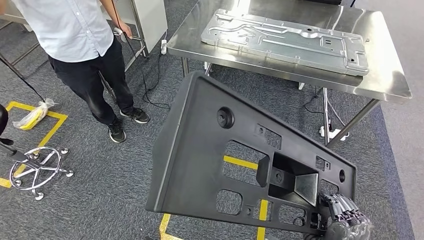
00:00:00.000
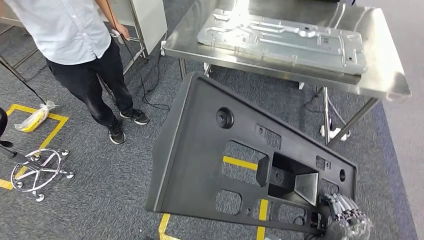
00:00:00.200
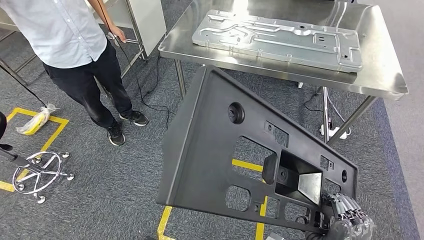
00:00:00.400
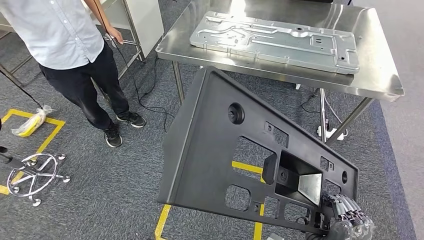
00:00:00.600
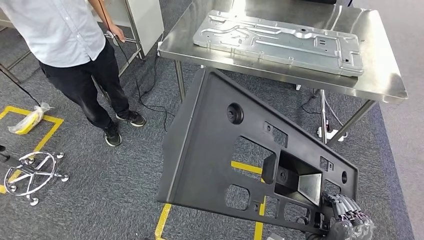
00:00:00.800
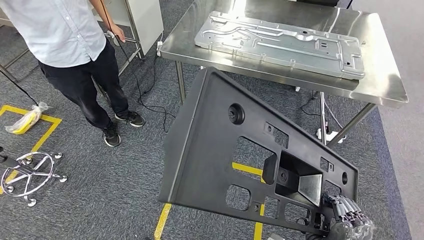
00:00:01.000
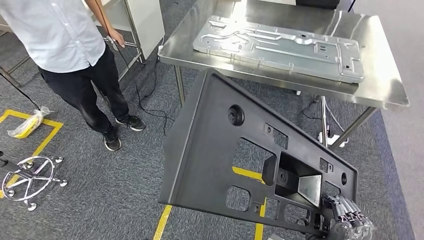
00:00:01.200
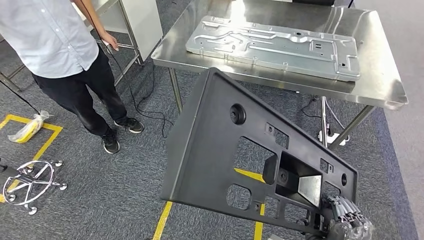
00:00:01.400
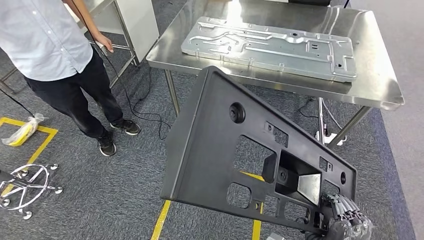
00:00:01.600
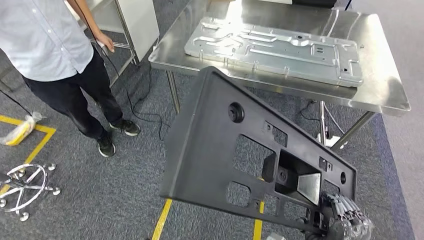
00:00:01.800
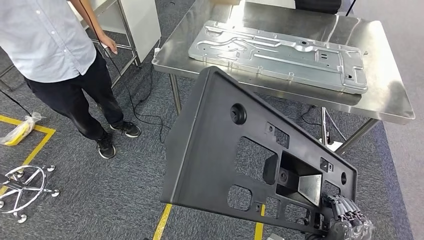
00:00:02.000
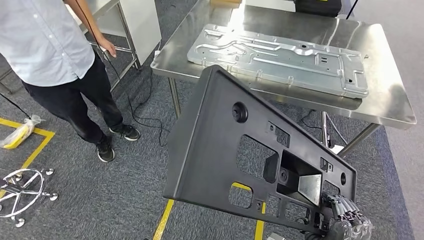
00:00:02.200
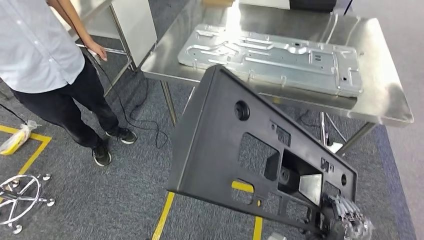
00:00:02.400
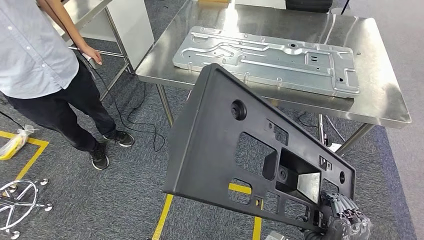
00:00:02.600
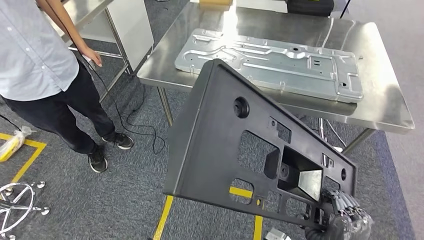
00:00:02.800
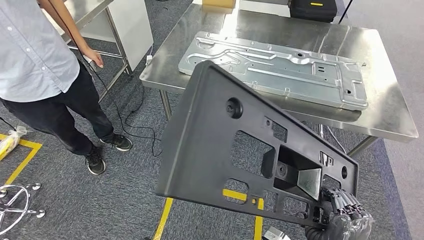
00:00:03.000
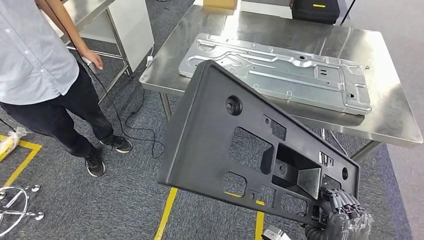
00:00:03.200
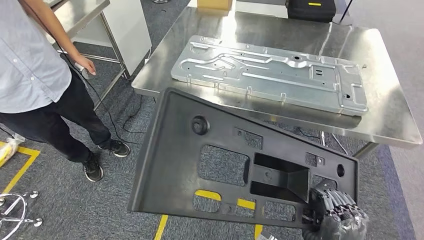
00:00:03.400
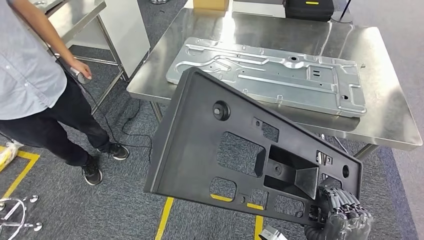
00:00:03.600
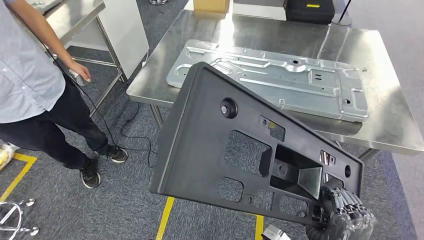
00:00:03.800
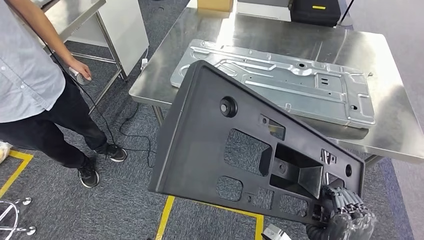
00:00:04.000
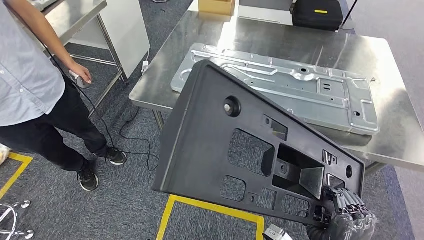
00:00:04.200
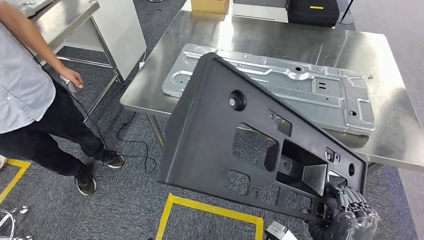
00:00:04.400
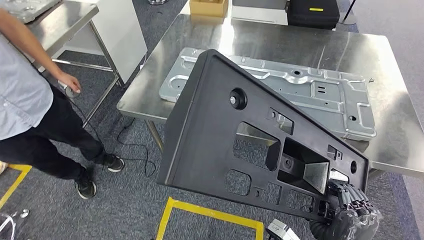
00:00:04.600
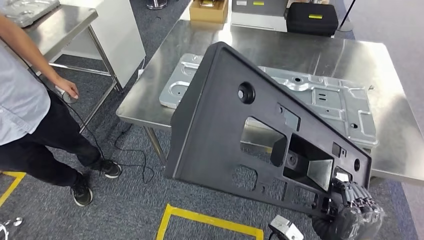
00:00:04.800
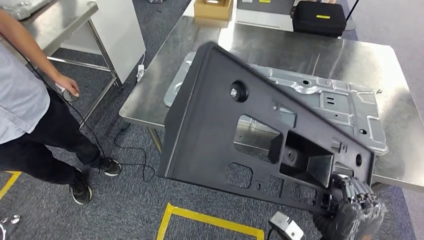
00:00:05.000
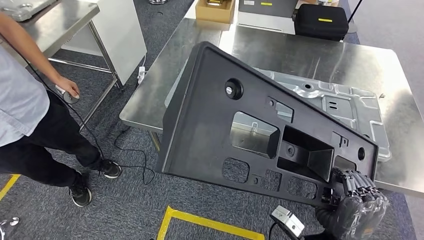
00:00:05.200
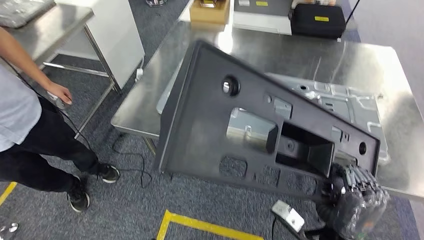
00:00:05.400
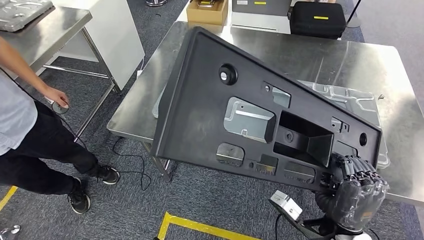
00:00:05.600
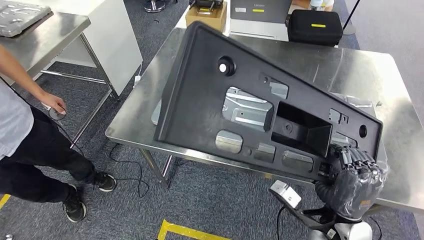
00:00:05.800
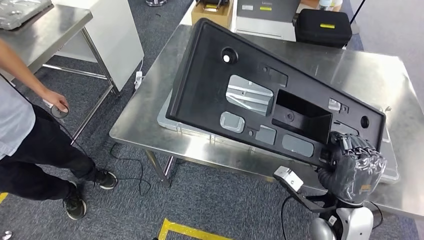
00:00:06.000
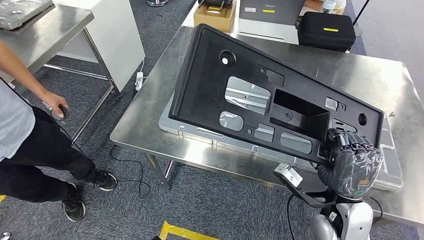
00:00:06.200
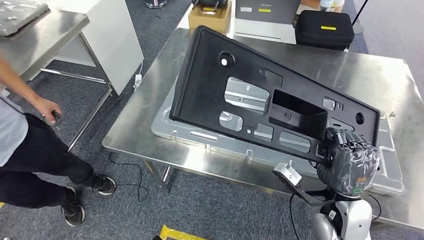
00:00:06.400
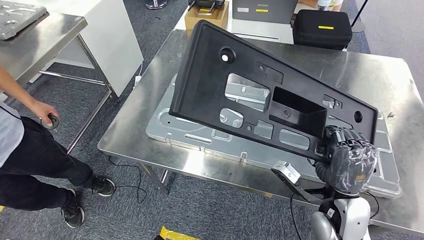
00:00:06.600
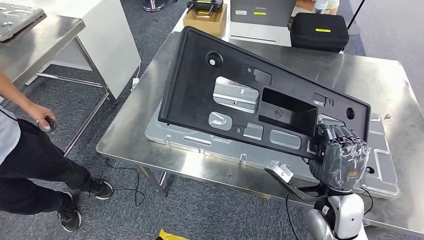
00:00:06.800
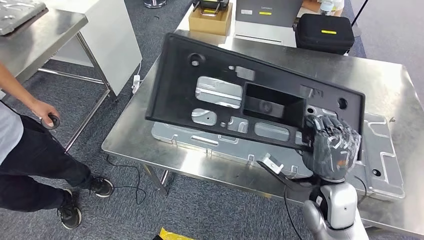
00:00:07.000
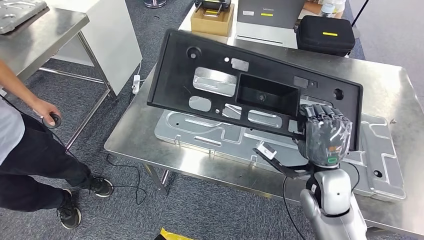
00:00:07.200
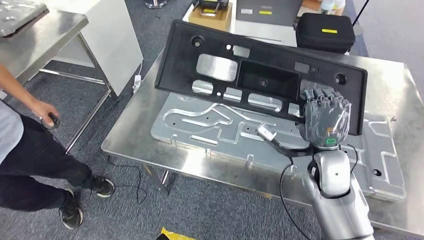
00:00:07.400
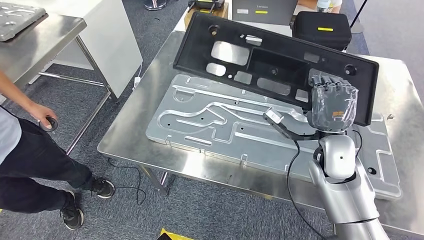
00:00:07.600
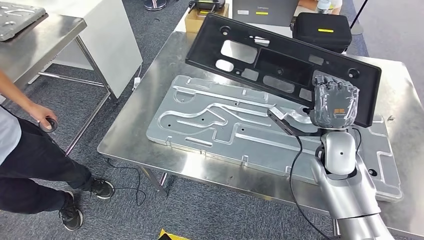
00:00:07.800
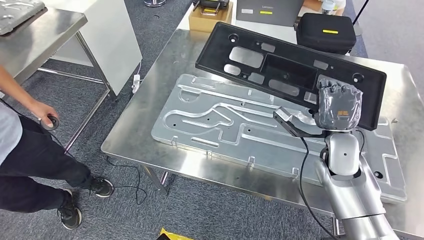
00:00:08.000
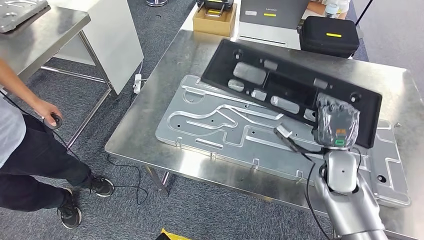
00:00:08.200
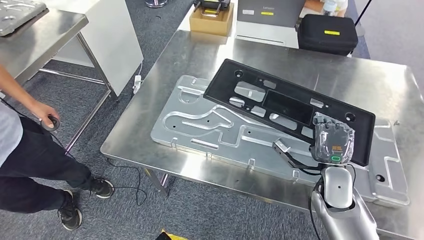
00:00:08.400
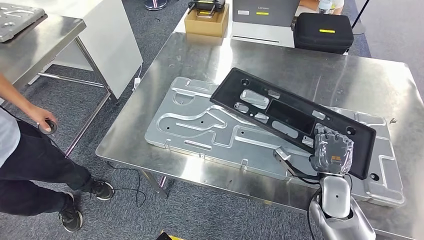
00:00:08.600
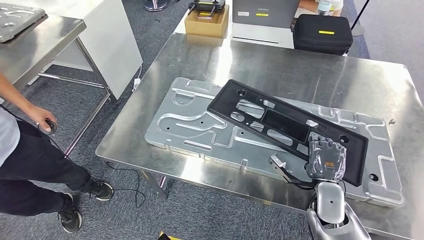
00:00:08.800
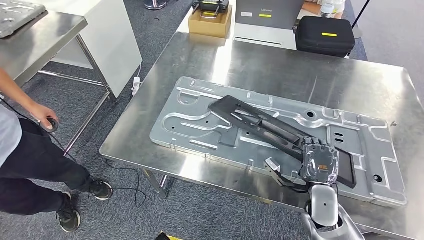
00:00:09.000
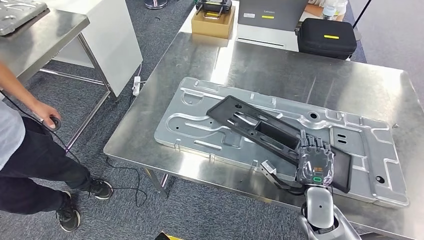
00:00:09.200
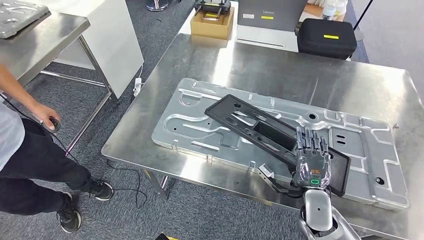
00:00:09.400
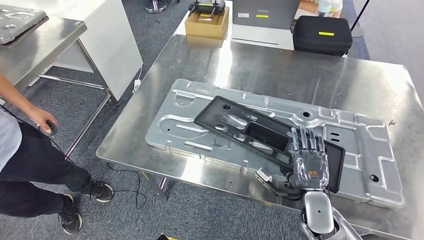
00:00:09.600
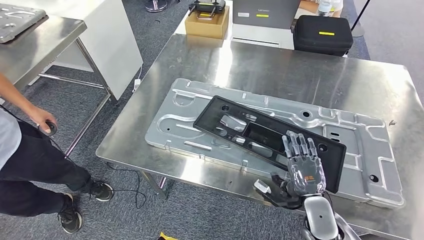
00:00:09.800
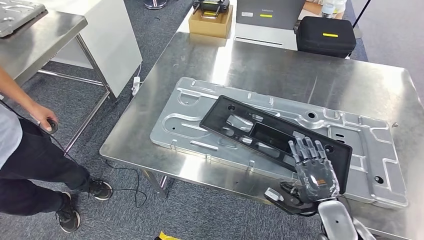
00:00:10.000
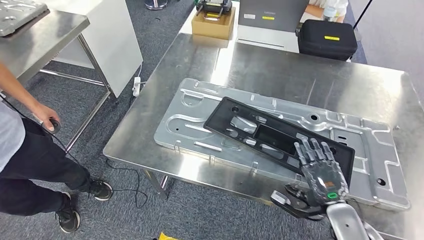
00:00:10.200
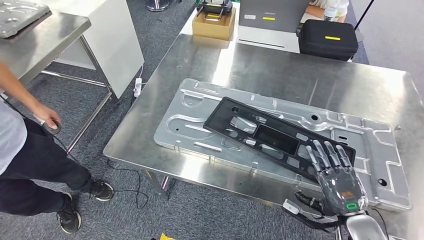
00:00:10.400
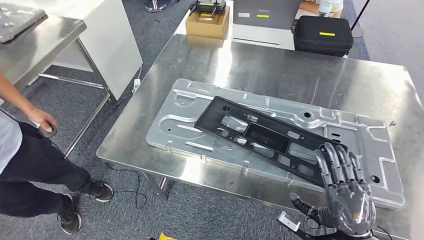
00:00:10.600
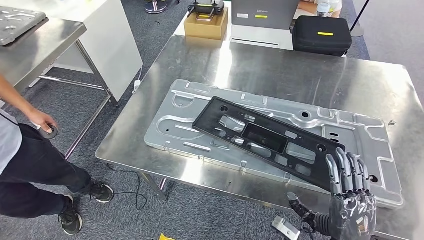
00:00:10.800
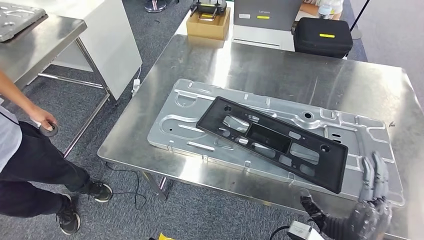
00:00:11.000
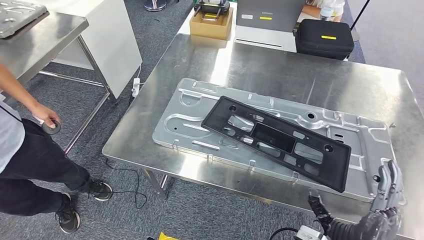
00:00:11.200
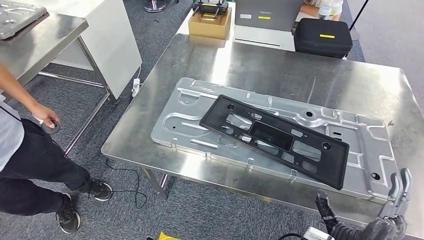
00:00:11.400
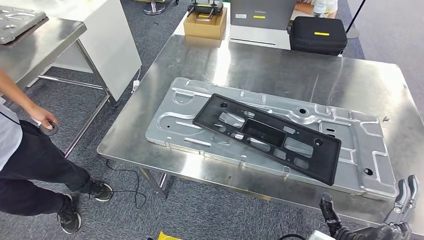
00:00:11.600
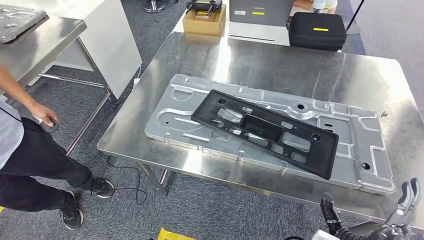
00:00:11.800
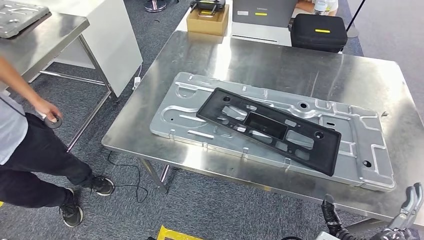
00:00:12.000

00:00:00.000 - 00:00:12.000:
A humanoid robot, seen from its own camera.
Step, 00:00:00.000 - 00:00:04.600: Move the large material to the workbench.
Step, 00:00:06.600 - 00:00:11.200: Insert the large material into the corresponding slot on the workbench.

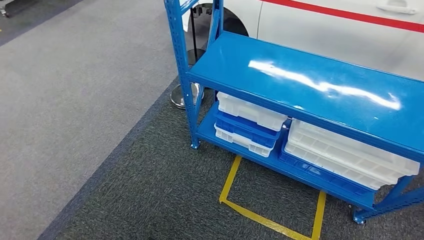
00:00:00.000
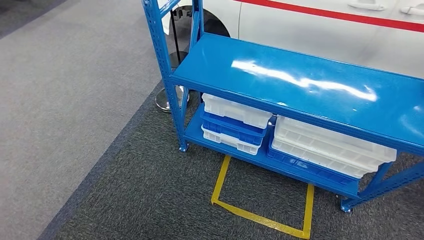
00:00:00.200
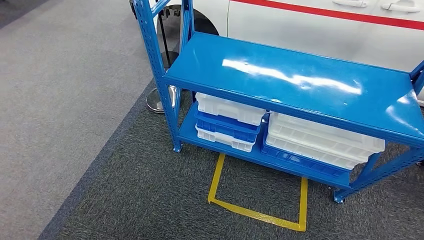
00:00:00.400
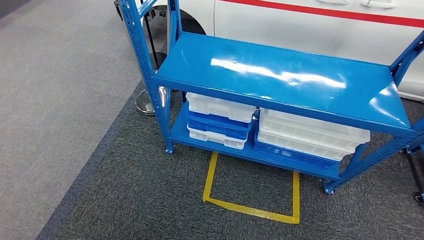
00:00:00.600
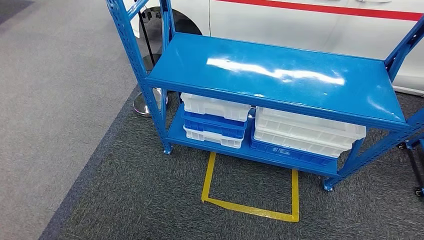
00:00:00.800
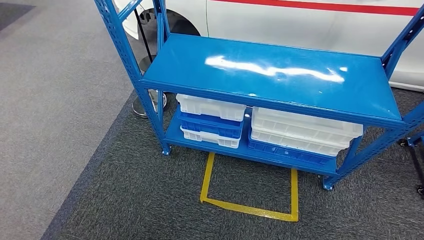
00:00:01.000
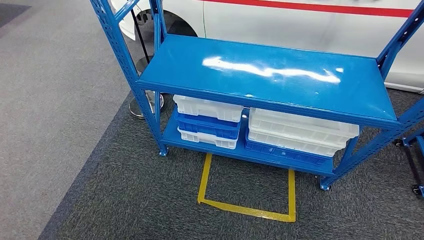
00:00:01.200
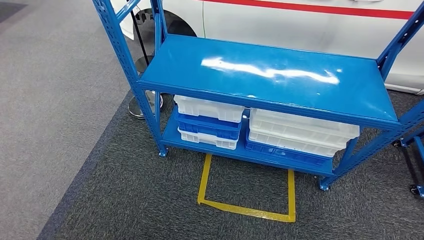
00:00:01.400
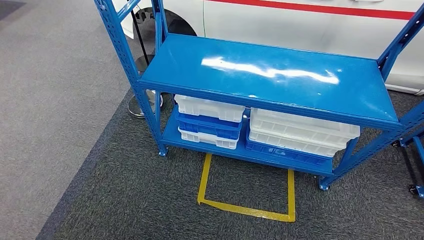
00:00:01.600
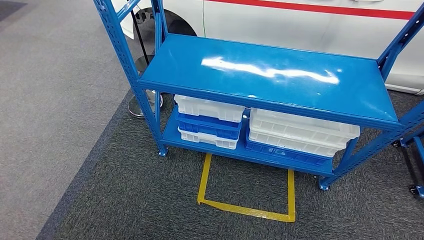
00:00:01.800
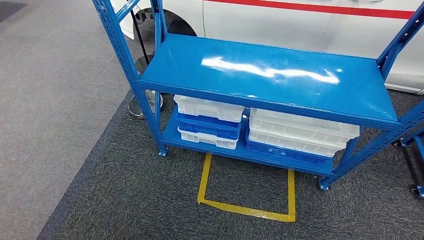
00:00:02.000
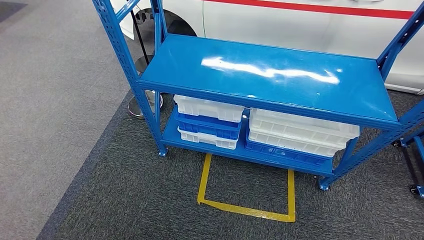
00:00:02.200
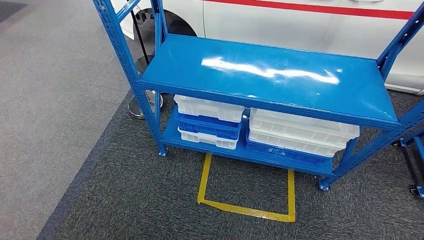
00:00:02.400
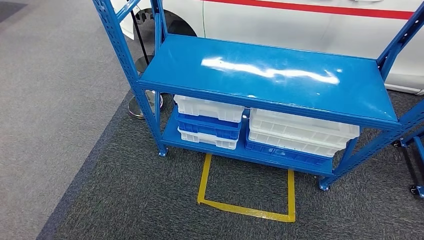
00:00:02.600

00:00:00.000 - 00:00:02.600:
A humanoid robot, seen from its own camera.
Step, 00:00:00.000 - 00:00:02.600: Move to the initial position of the shelf.
00:00:01.200 - 00:00:02.600: The hands make only small movements.

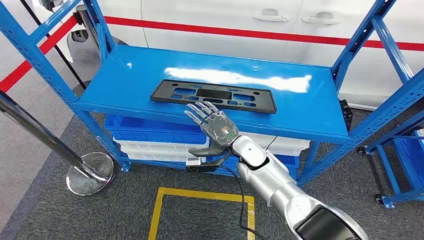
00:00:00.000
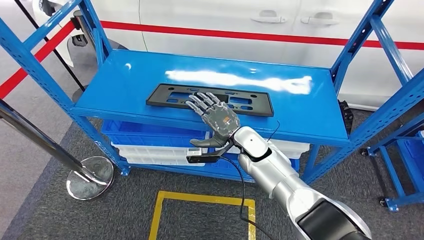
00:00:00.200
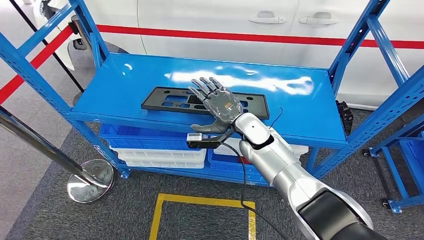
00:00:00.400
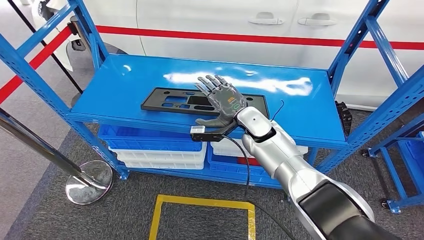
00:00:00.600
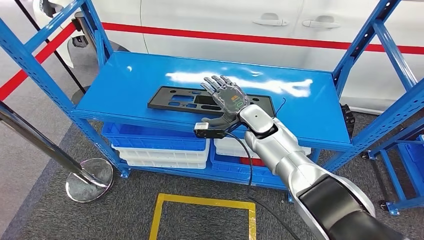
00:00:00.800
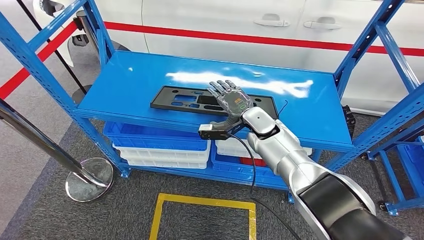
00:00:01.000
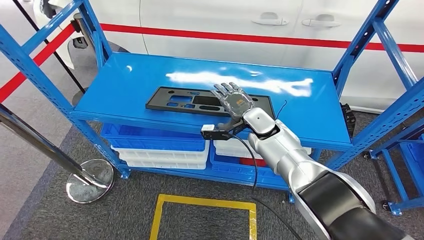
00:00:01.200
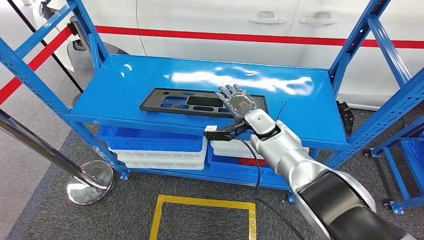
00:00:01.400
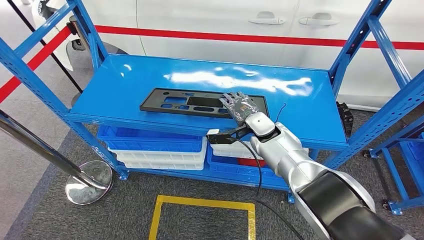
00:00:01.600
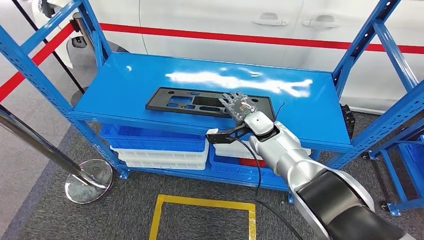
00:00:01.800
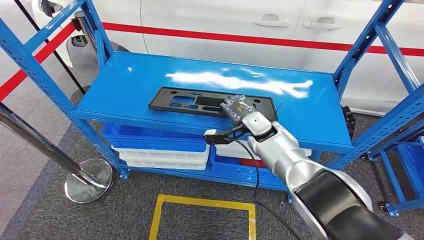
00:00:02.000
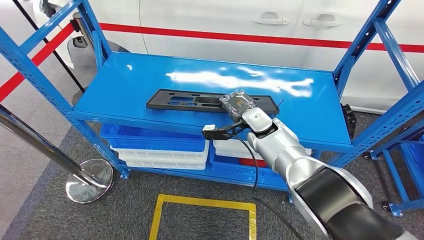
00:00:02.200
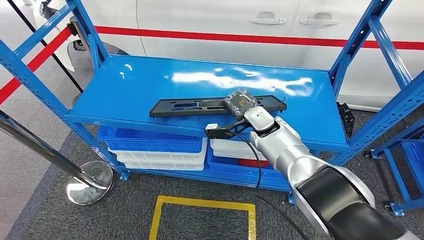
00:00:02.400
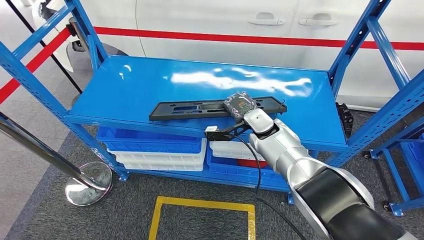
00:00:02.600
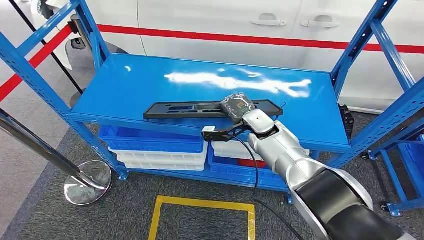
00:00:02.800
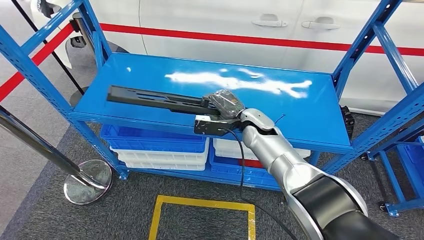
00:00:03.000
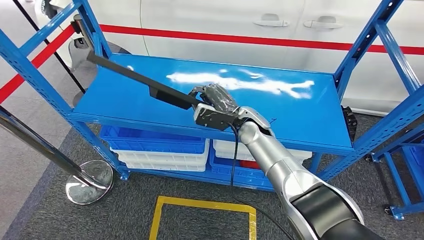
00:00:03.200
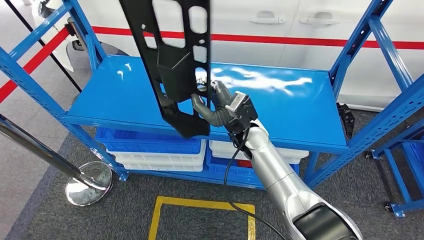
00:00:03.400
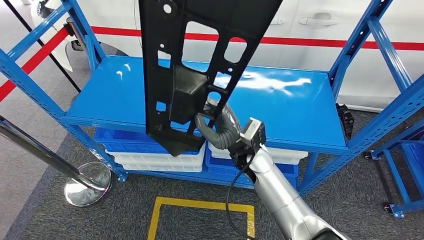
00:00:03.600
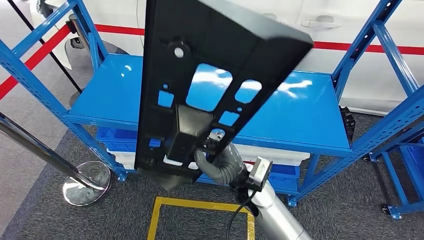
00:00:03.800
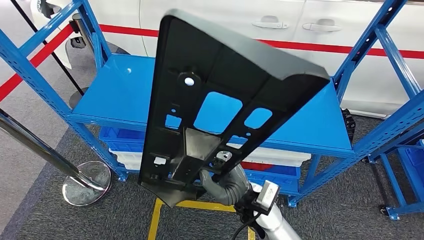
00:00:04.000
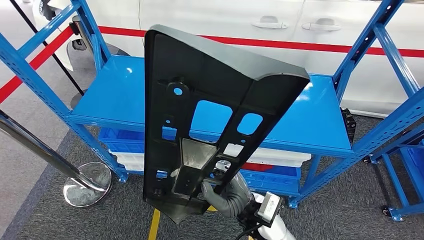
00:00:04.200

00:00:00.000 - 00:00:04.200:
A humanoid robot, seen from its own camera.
00:00:01.400 - 00:00:02.800: The hands move only a little.
